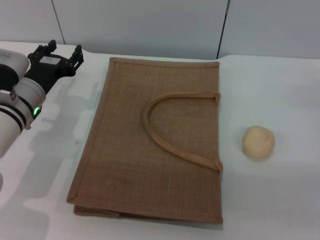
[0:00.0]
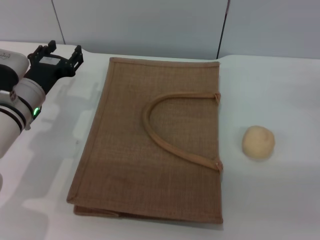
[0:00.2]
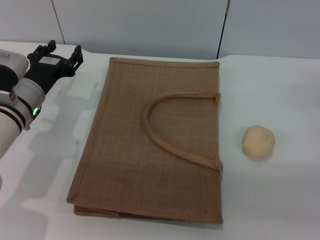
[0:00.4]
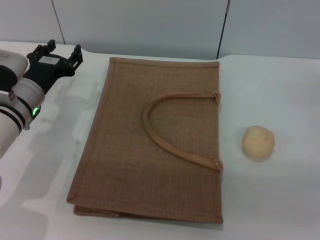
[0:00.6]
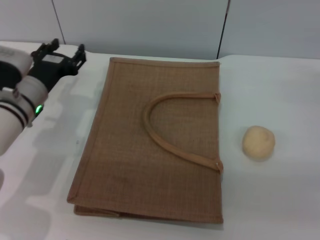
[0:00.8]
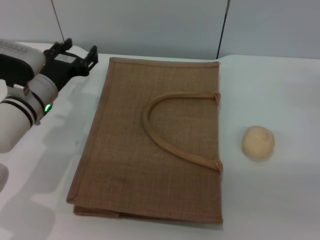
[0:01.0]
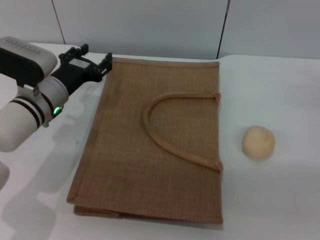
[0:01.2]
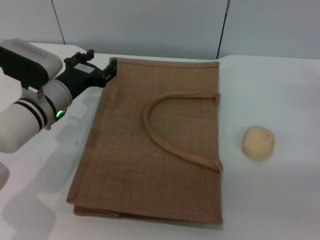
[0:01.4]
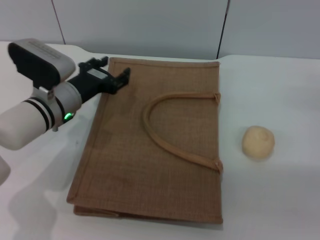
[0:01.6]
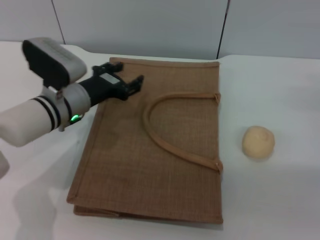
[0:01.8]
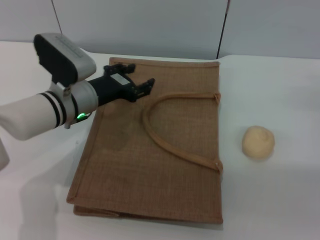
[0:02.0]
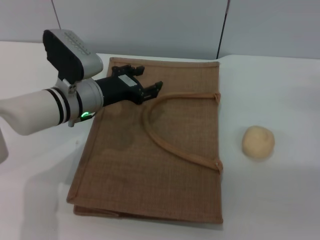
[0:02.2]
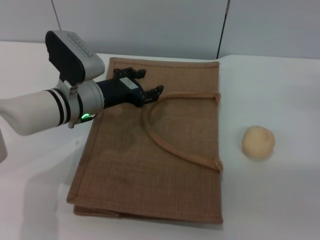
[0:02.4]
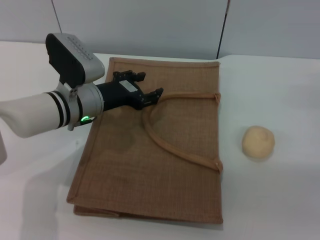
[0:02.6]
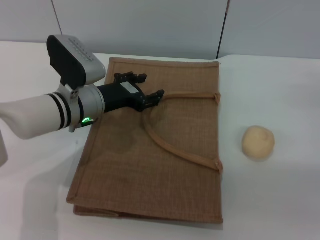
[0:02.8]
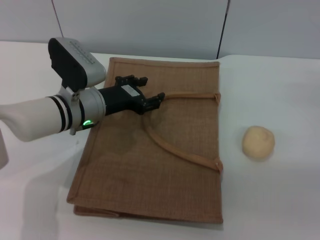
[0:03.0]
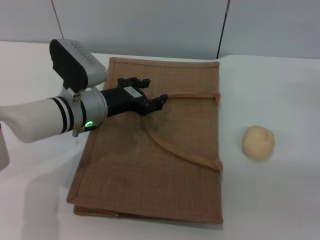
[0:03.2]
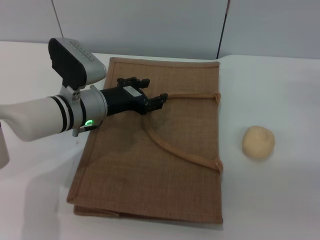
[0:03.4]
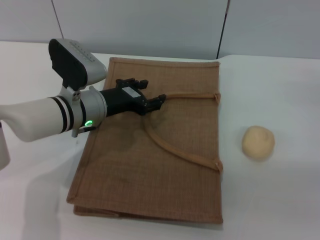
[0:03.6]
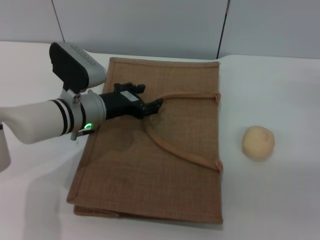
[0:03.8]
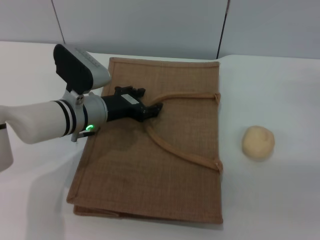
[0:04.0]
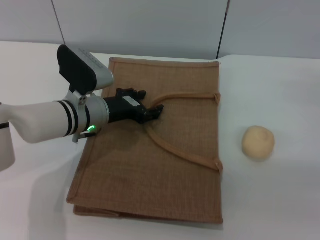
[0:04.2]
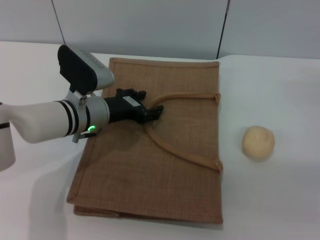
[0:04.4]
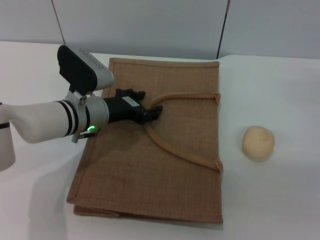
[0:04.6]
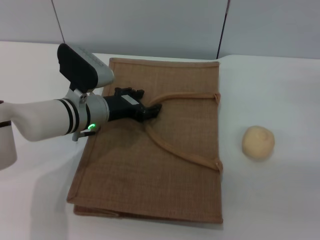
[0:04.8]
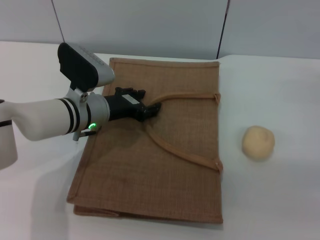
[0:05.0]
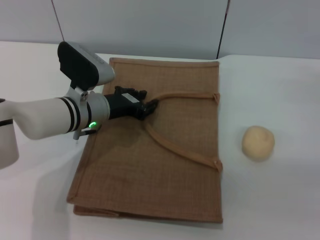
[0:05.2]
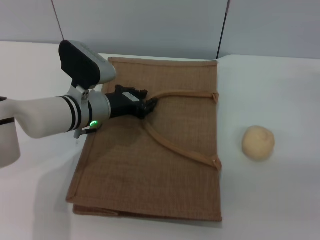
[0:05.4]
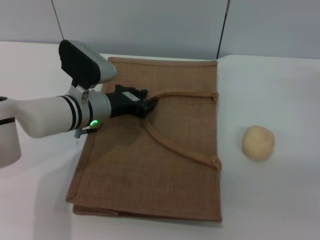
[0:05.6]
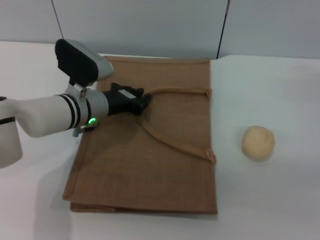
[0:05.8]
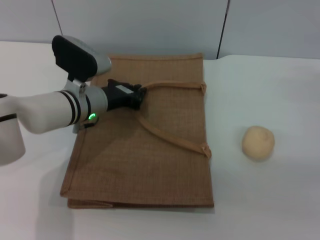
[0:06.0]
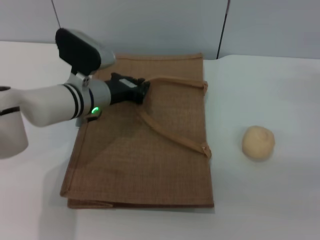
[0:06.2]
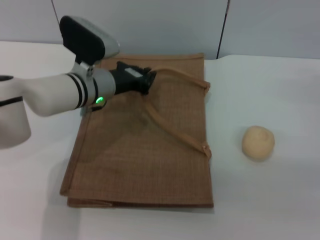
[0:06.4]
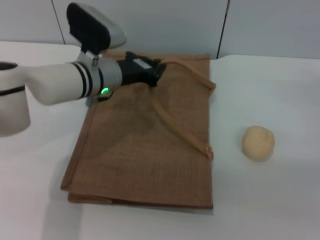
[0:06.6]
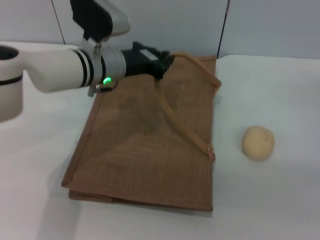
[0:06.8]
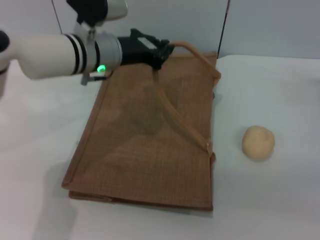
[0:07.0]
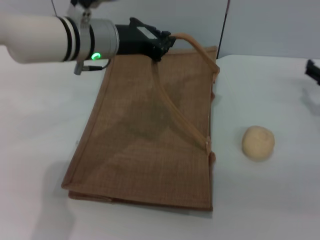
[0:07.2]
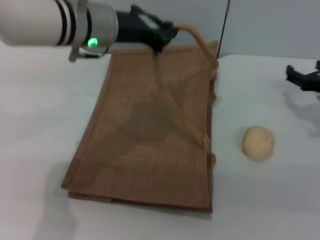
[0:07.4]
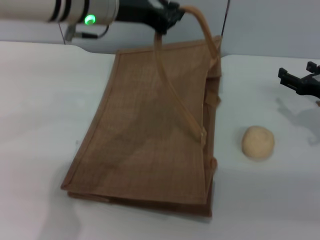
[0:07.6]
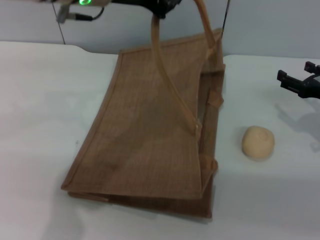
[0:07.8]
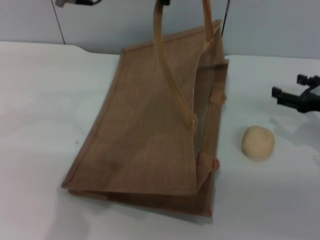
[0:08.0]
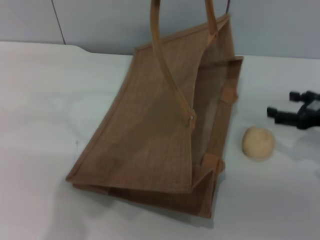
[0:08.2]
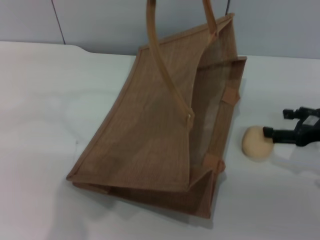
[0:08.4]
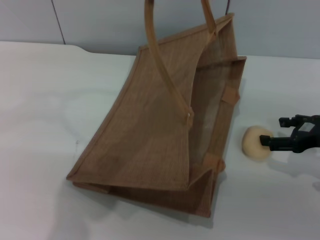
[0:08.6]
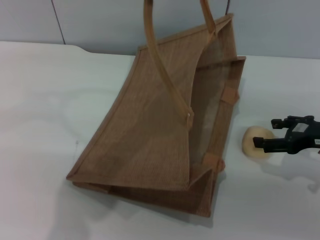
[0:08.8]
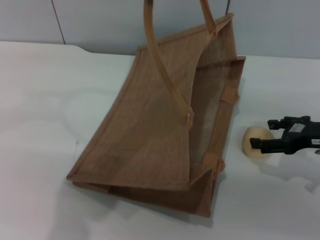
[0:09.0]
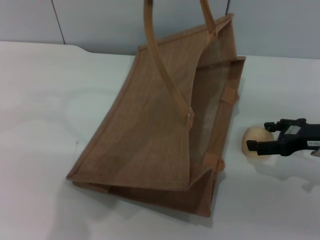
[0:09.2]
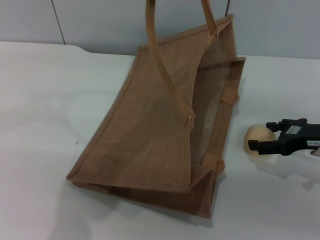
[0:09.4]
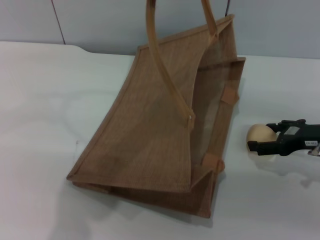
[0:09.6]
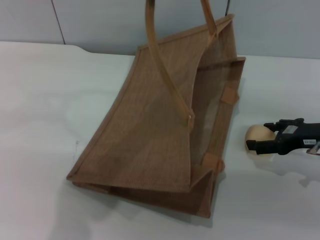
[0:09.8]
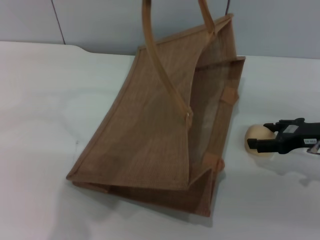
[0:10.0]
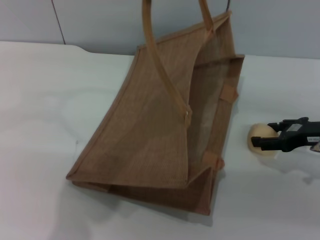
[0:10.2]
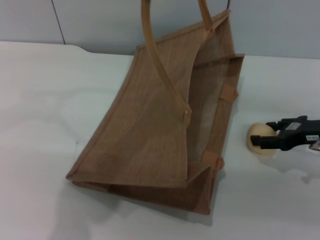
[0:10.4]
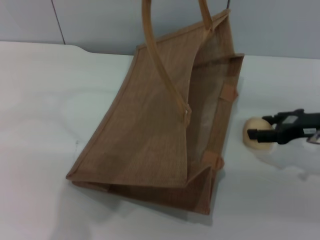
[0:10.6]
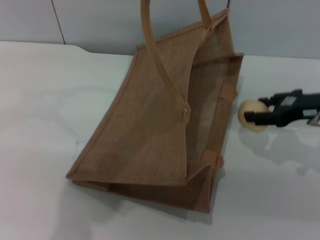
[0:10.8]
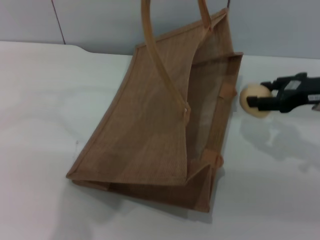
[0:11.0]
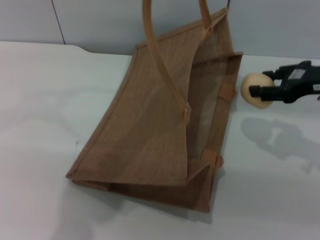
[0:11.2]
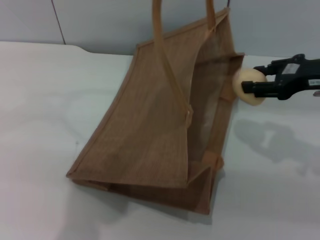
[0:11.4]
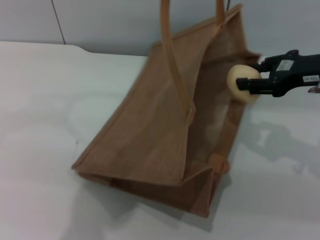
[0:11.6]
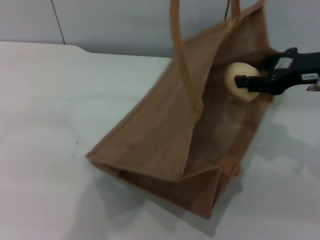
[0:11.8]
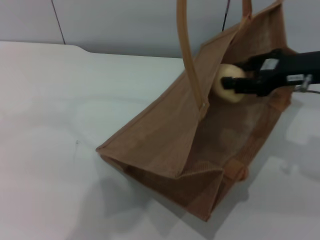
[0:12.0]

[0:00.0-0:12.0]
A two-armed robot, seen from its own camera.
Task of the whole recording: pick up the egg yolk pastry from the table and place it in the brown handbag.
Step, 0.0 to 7.0 s: Lift the woven bag with the left gripper to open it.
Step, 7.2 to 11.0 s: Pick up the egg yolk pastry with the right gripper.
0.0 to 1.6 s: The grippers make only small movements.
1.6 to 3.0 s: There are only small adjustments of the grippers.
3.0 to 4.4 s: The grippers move only a little.
4.4 to 6.0 s: The left gripper closes its fingers.
6.0 to 7.6 s: The left gripper shifts some 20 cm upward.
7.6 to 9.0 s: The right gripper changes place by approximately 5 cm, while the left gripper heads upward, covering about 5 cm.
9.0 to 10.4 s: The grippers move only a little.
10.4 to 12.0 s: The right gripper heads upward and to the left, covering about 10 cm, and closes its fingers; the left gripper moves approximately 5 cm.

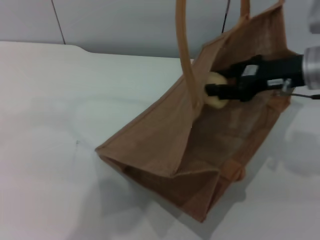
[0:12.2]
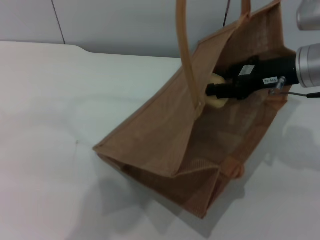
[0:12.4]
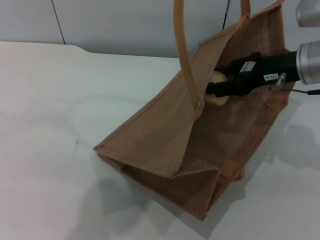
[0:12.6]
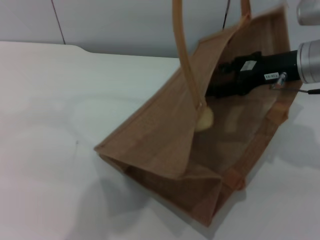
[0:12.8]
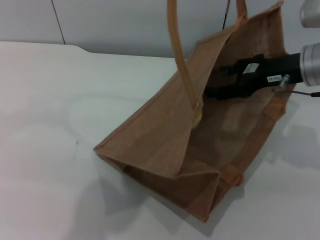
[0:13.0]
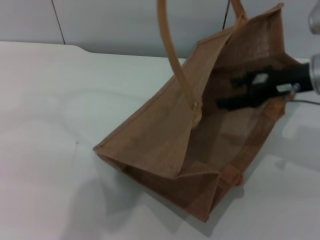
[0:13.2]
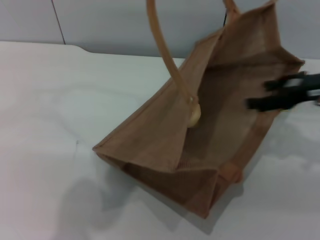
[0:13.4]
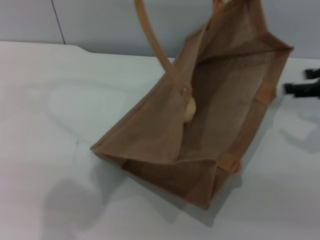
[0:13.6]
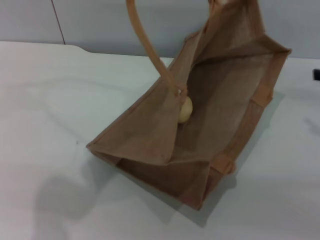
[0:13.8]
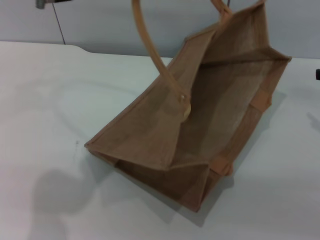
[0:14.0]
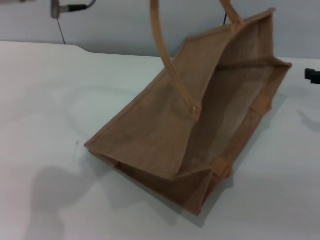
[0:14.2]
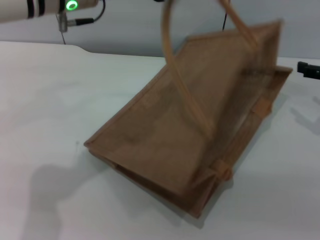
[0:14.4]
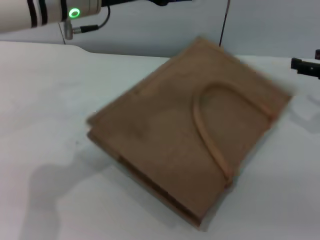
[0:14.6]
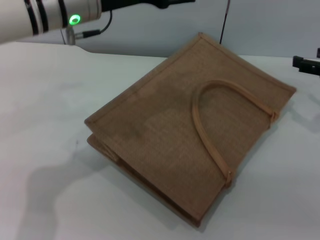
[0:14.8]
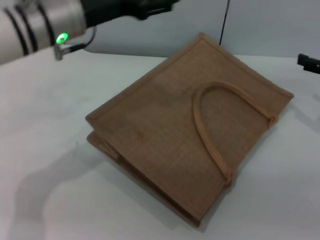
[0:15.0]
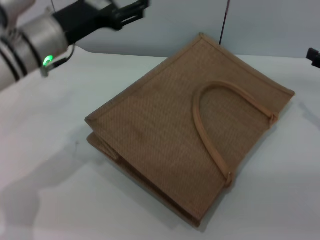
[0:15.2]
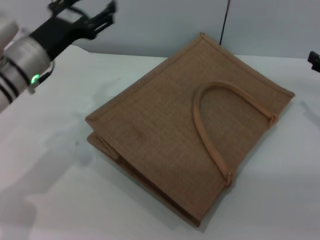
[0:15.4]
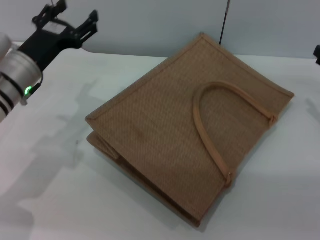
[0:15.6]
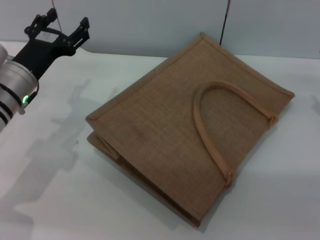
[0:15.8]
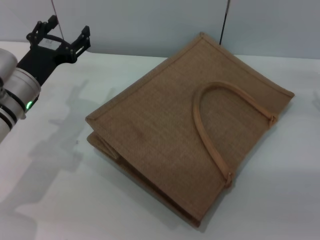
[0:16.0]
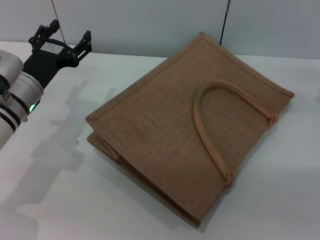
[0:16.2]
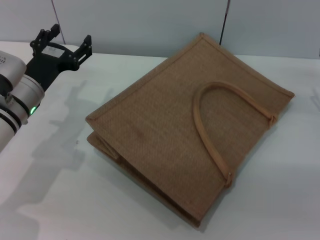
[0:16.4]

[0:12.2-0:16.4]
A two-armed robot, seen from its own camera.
Task of the whole recording: pick up the egg yolk pastry from the table and place it in the brown handbag.
Step, 12.2 to 13.4 s: Place the egg yolk pastry into the woven bag with the right gripper.
Step, 13.6 to 15.0 s: Lower the woven bag with the left gripper to close it.
12.2 to 13.6 s: The left gripper heads to the left, covering some 5 cm. The right gripper travels to the right by about 10 cm, and opens up.
13.6 to 15.0 s: The left gripper shifts roughly 10 cm downward, and opens its fingers.
15.0 to 16.4 s: The left gripper shifts about 15 cm downward and to the left, while the right gripper heads downward, covering roughly 5 cm.

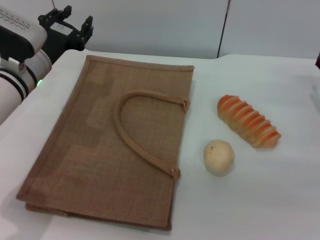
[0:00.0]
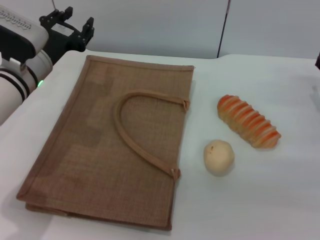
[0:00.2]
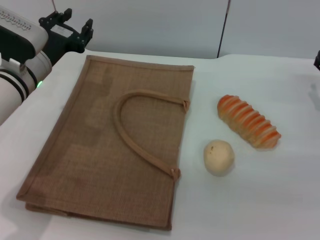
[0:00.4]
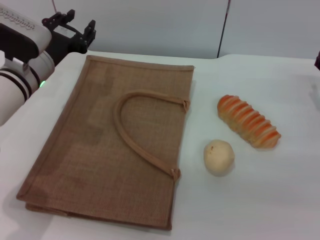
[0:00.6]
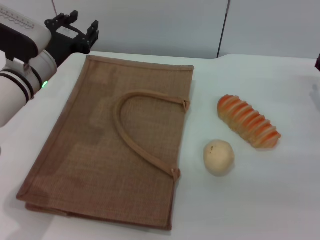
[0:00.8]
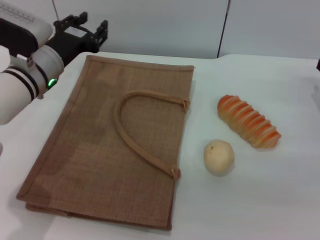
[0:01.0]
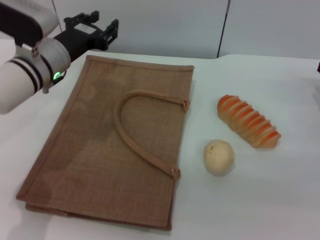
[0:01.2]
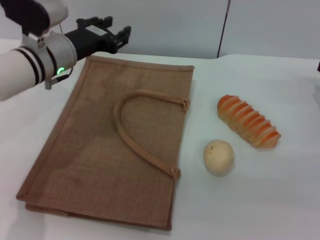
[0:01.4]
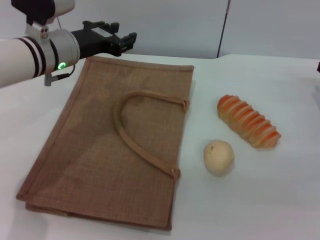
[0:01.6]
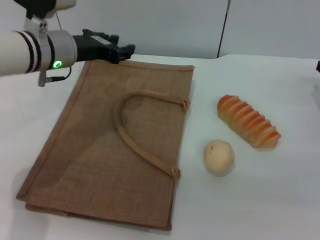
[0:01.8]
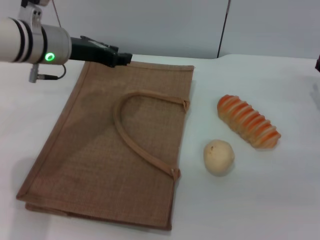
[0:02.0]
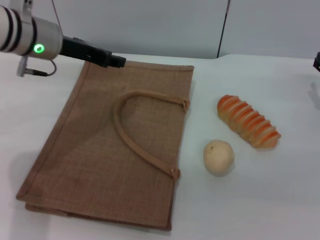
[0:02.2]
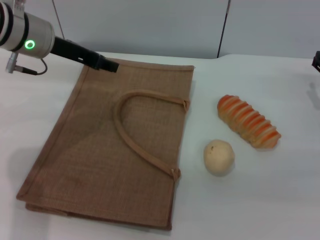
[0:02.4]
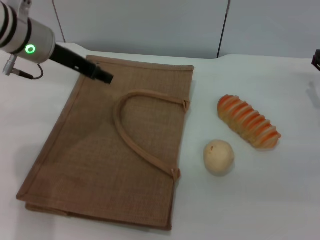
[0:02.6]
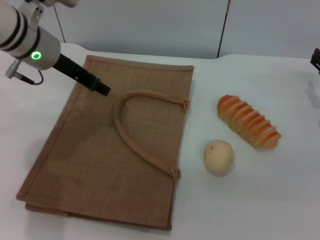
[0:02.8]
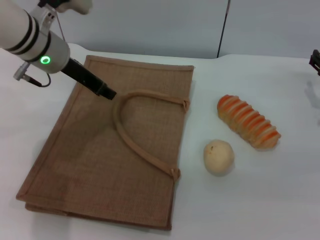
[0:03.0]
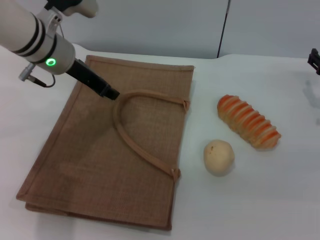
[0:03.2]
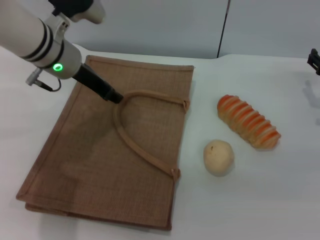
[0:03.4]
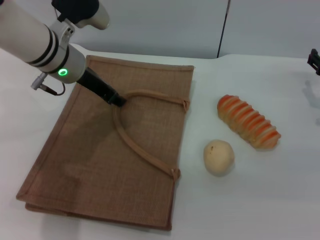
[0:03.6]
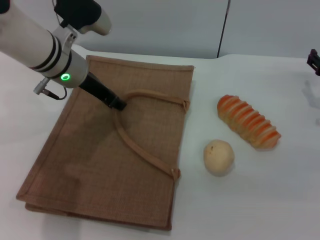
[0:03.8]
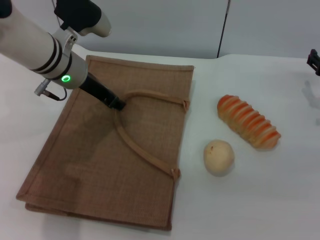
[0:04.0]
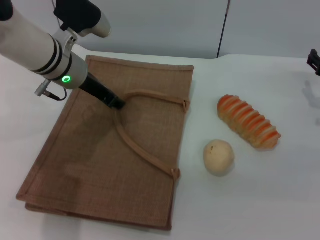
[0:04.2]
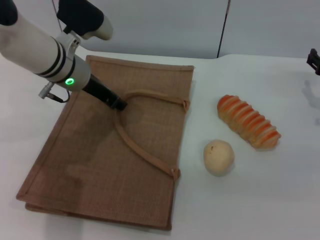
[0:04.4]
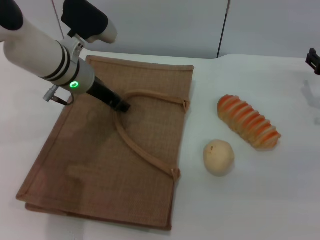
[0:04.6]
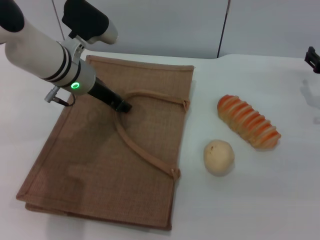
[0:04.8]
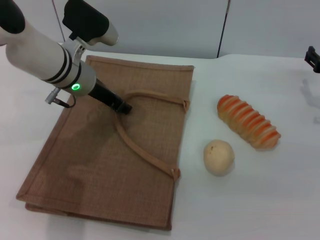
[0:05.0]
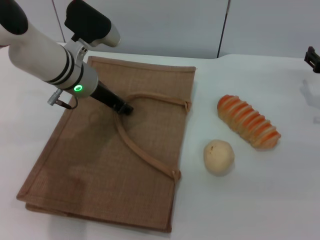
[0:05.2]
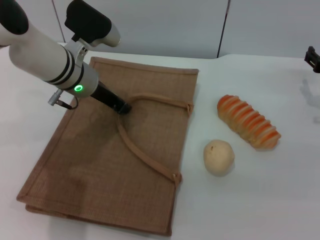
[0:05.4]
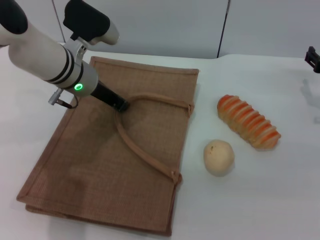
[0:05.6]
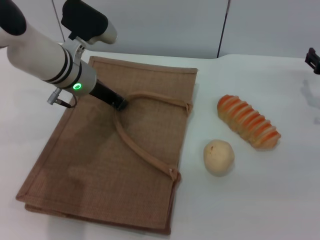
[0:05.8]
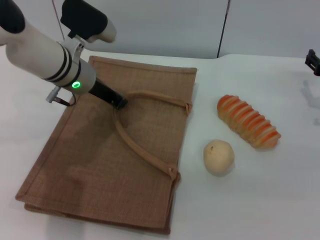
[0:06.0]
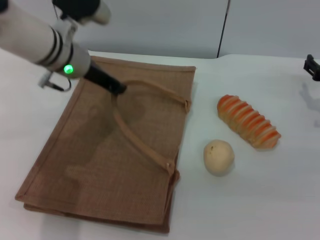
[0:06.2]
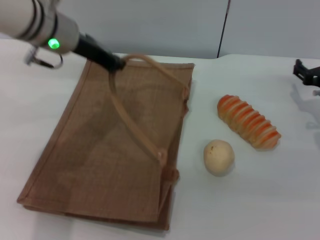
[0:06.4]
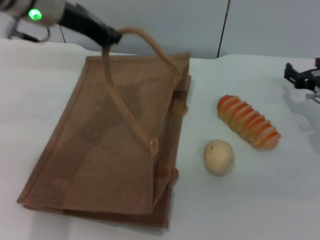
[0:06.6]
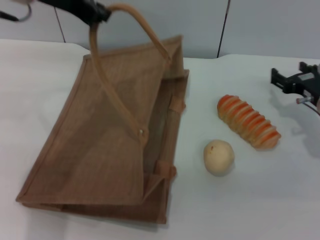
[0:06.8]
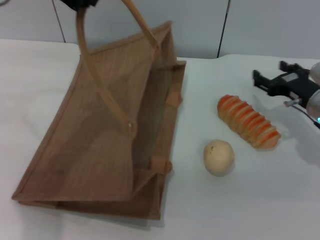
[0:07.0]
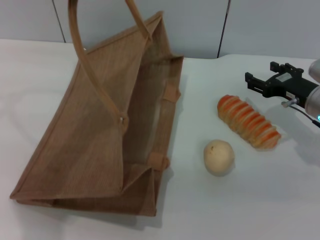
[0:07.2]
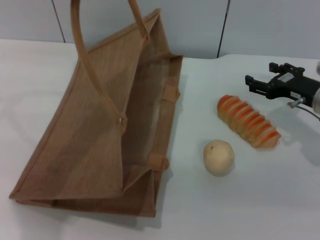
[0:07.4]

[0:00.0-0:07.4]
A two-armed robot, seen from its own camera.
Task of the whole recording: pick up the bread and egg yolk pastry from the table and place it in the brown handbag.
Step, 0.0 to 6.2 s: Lift the woven bag with the left gripper to open it.
0.0 to 1.4 s: The grippers stay close to where they were, moving slightly.
1.4 to 3.0 s: The left gripper shifts by some 5 cm.
3.0 to 4.4 s: The grippers stay close to where they were, moving slightly.
4.4 to 6.0 s: The left gripper closes.
6.0 to 7.4 s: The left gripper is displaced upward by some 25 cm.
